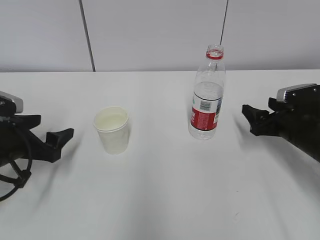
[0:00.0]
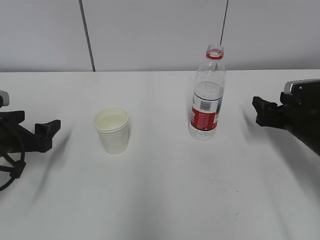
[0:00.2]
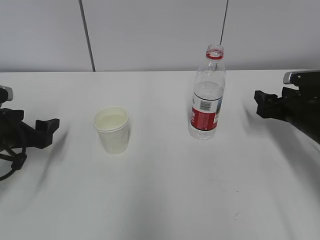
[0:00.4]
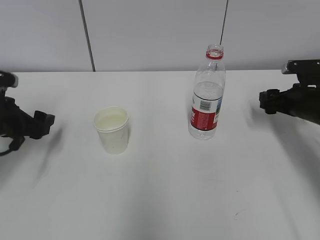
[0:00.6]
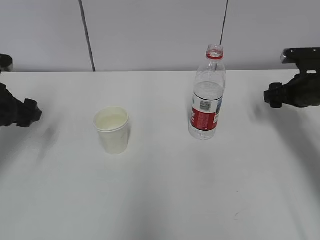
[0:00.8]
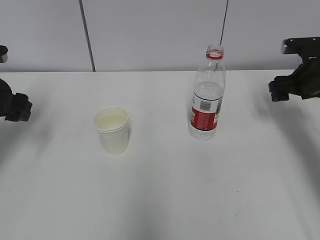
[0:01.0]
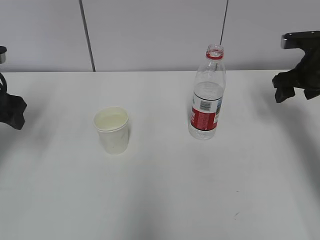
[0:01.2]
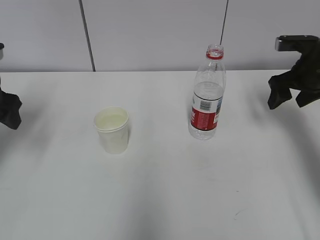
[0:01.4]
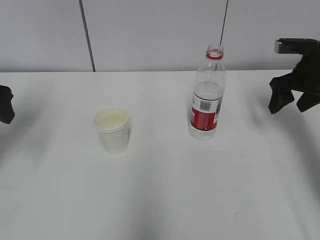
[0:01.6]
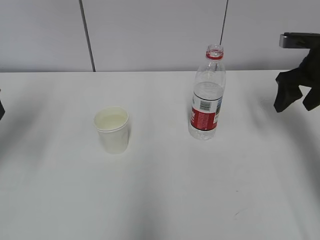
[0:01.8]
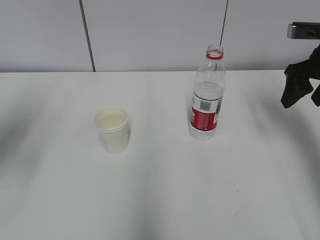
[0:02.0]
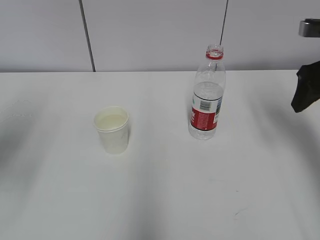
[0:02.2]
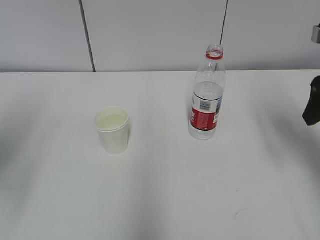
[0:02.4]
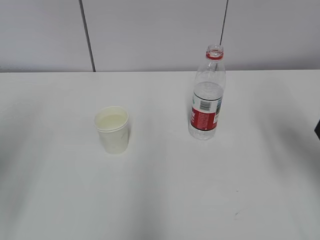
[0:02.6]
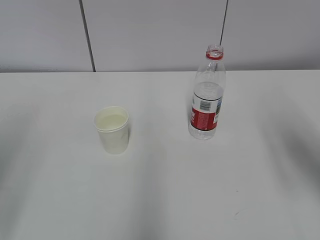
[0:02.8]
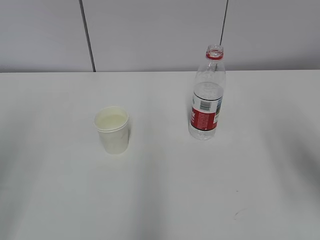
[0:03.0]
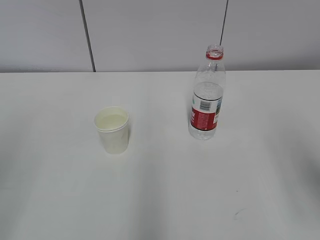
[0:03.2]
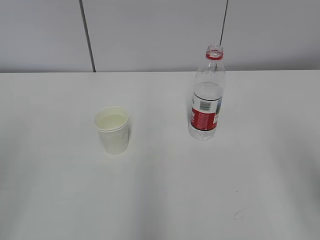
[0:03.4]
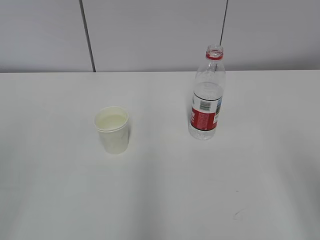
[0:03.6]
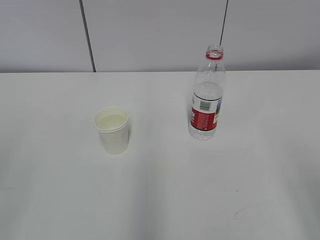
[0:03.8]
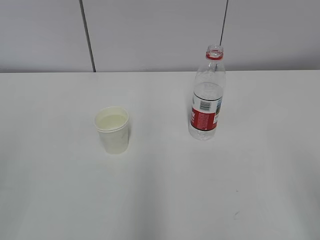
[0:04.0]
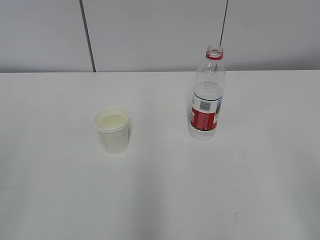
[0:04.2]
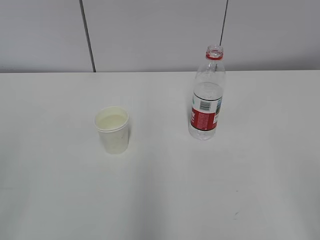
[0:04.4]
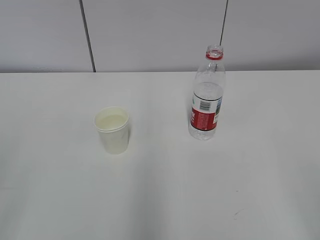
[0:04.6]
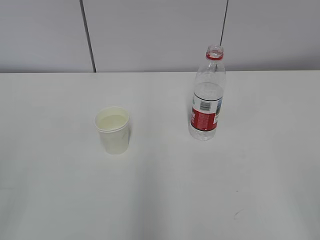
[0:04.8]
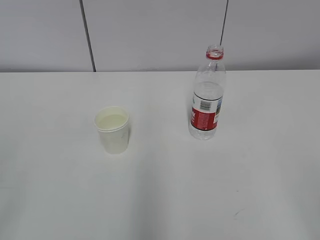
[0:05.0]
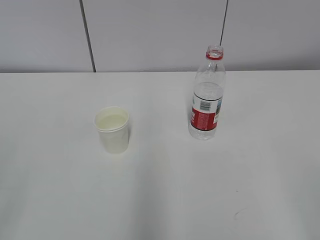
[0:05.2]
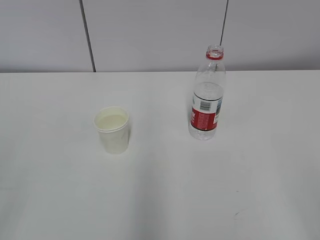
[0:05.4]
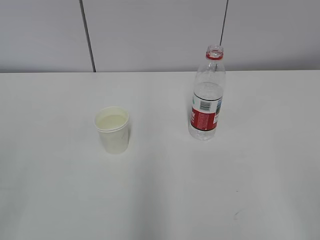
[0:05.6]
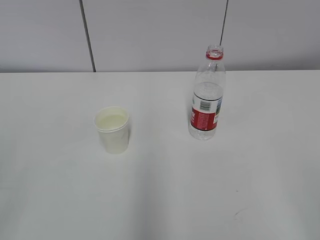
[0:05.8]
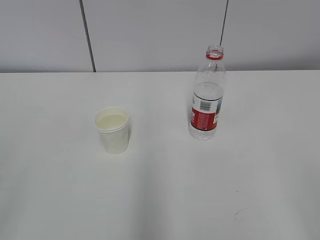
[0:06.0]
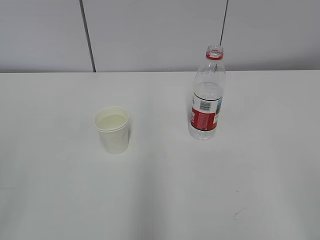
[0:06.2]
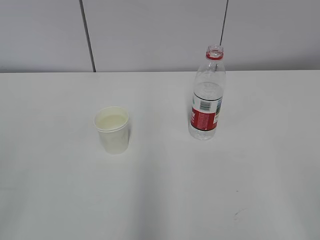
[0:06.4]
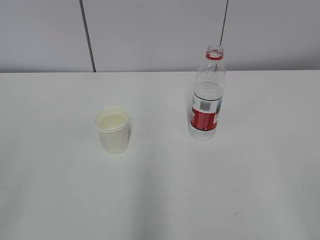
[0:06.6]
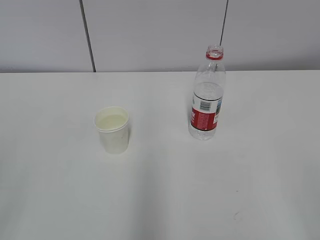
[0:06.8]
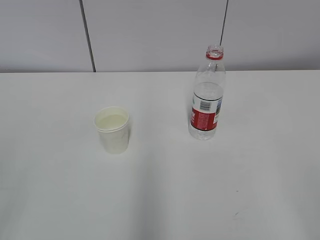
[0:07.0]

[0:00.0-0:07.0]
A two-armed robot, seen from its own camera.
0:00.0 to 0:01.4: Both grippers travel together upward and forward, some 15 cm.
0:01.4 to 0:02.8: The left gripper goes about 20 cm backward. The right gripper goes about 20 cm backward and upward.
0:02.8 to 0:04.2: The right gripper goes roughly 20 cm backward.
0:05.6 to 0:07.0: Both grippers stay put.

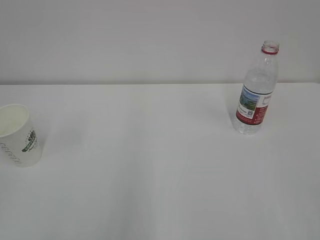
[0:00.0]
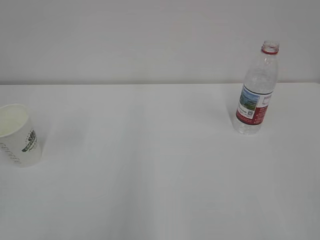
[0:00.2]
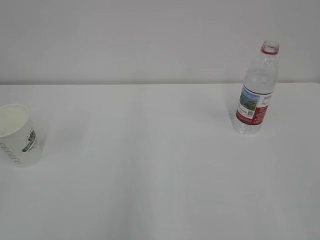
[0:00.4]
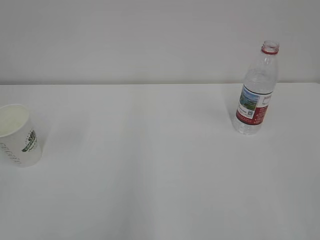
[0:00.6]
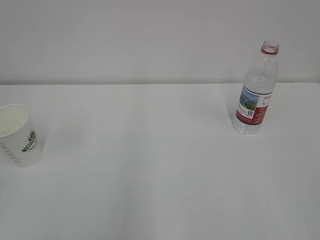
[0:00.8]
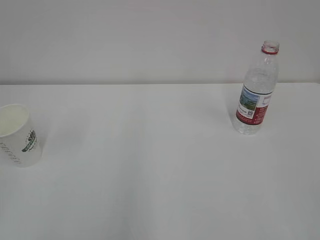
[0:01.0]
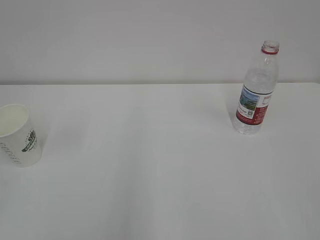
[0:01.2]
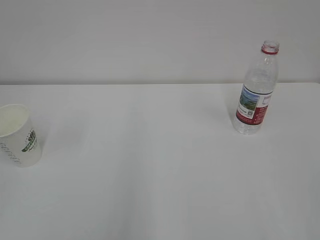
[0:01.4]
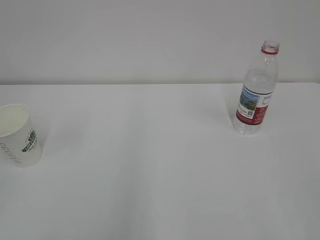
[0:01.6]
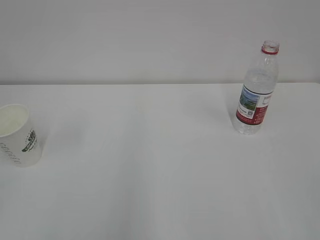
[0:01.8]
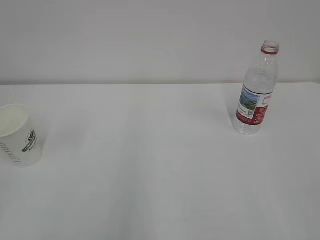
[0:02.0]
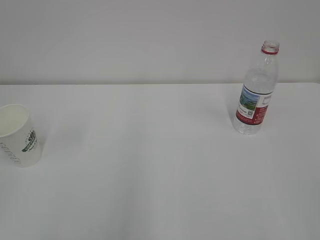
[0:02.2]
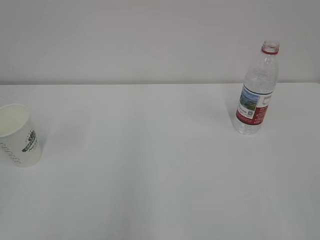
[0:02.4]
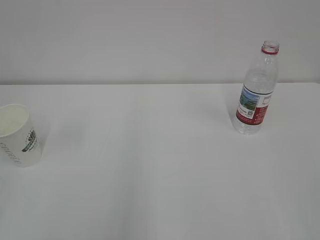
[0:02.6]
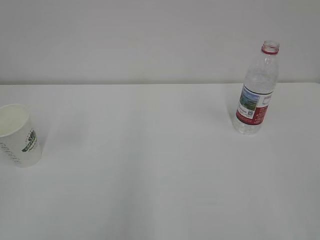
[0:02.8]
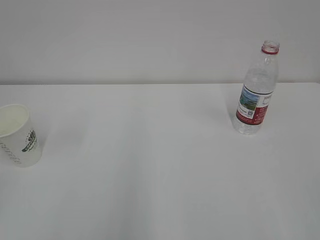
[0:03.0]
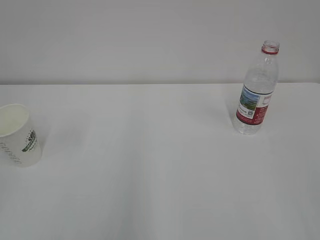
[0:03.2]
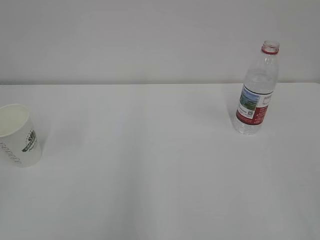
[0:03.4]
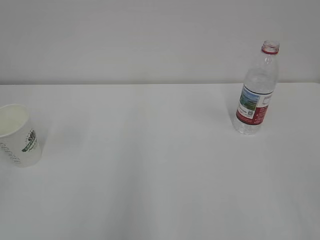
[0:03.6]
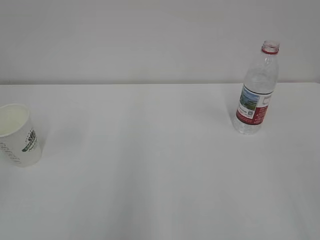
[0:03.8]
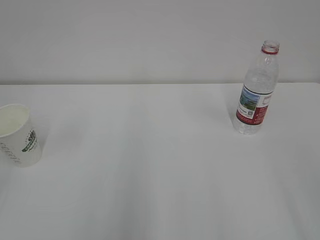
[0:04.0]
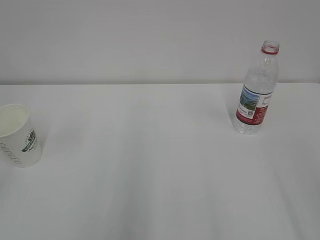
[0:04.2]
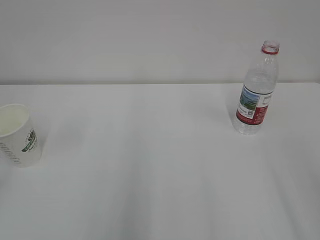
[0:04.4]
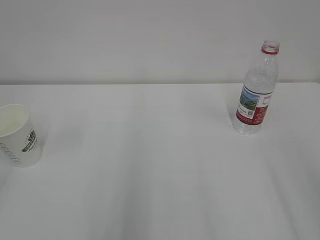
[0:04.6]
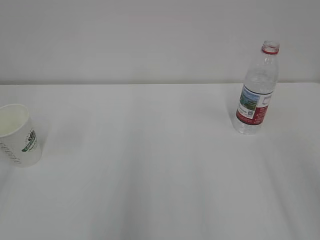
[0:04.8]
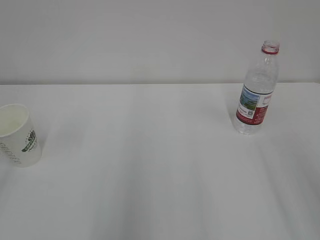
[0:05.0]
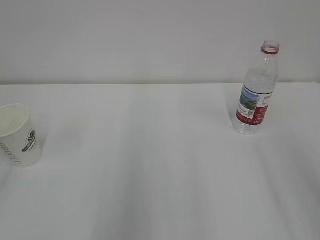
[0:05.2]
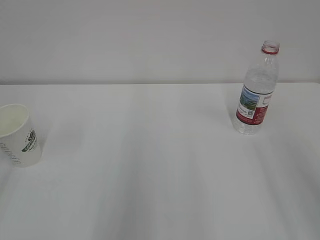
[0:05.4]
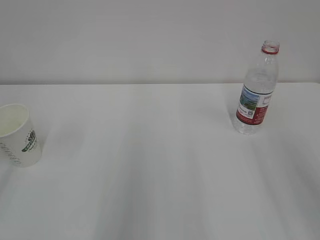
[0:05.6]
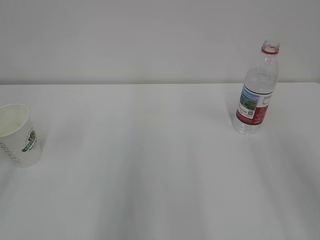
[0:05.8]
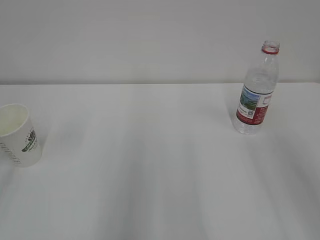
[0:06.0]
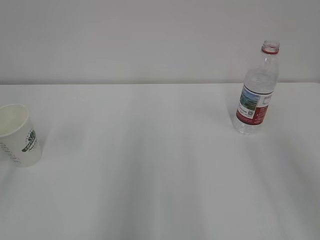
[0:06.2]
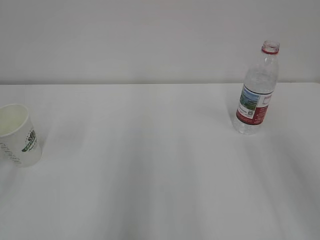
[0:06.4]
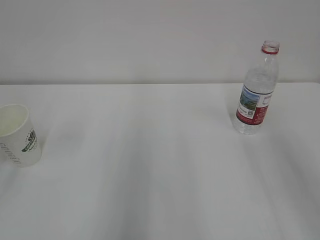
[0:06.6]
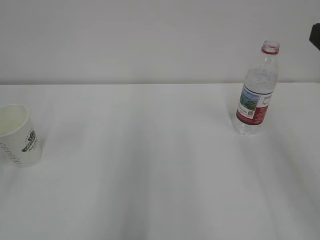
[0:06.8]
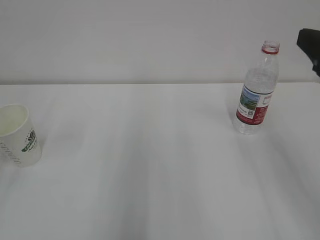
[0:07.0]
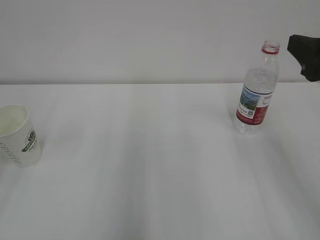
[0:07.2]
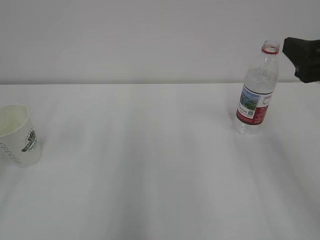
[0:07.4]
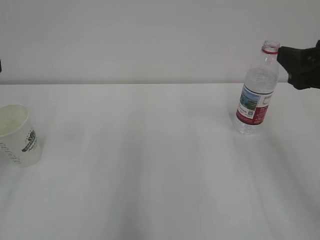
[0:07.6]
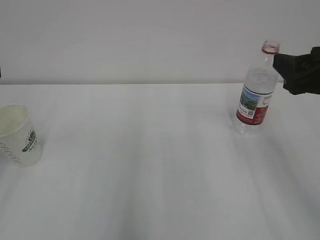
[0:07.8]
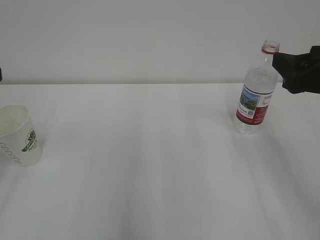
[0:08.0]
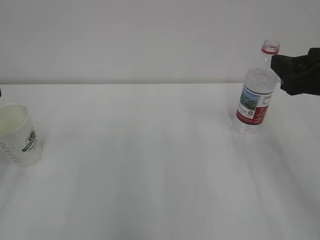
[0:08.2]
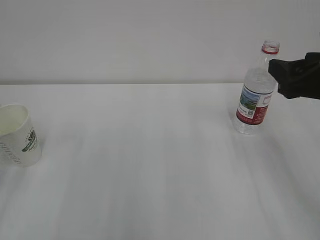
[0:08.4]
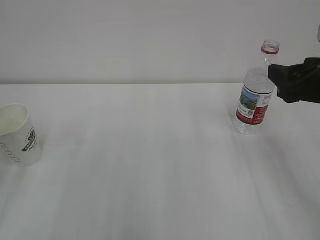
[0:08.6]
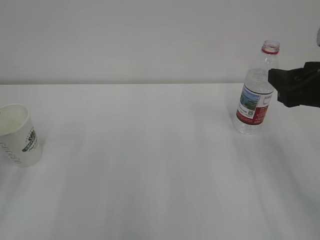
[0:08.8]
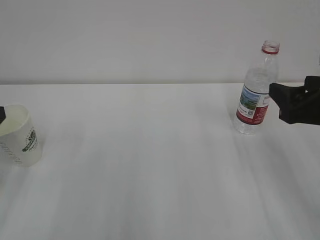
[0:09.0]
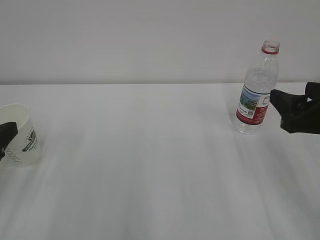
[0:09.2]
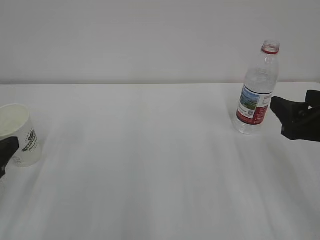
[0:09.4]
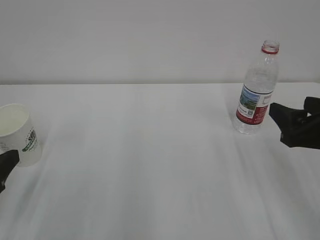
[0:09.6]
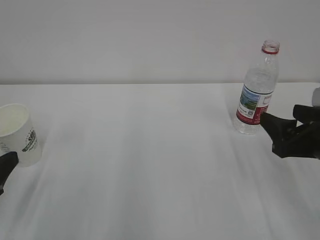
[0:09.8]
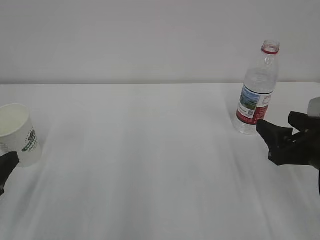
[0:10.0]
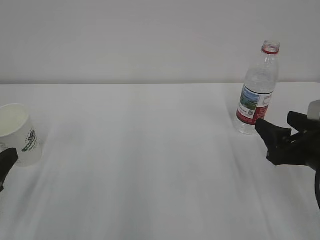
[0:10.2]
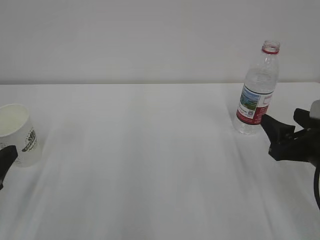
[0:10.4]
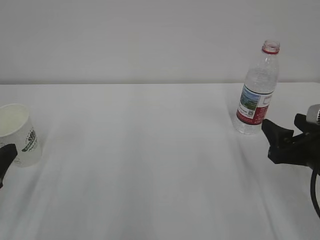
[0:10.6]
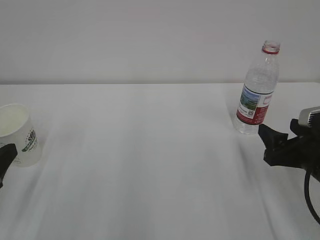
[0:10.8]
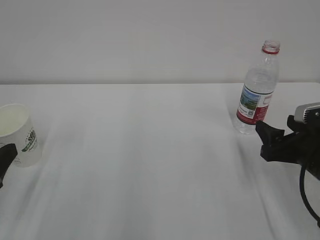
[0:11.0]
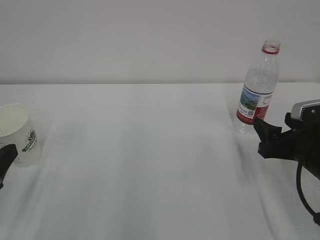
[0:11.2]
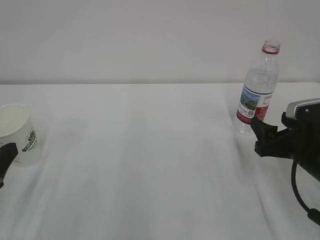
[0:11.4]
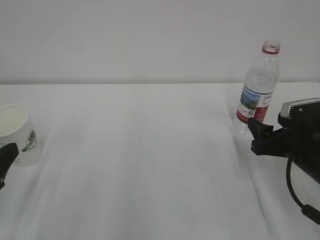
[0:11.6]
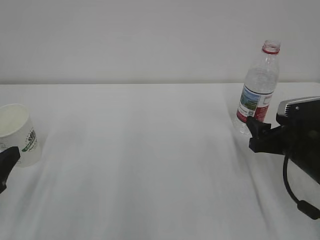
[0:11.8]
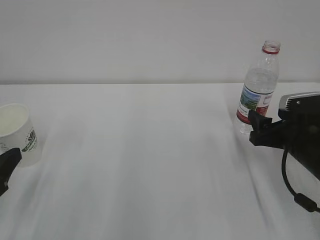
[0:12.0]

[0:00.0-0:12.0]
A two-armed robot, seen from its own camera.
0:01.6 to 0:03.0: The two grippers keep their place.
0:06.0 to 0:07.6: The right gripper goes about 10 cm forward.
0:09.0 to 0:10.4: Both grippers travel together downward, approximately 5 cm.
0:10.4 to 0:12.0: The right gripper moves forward, roughly 5 cm.

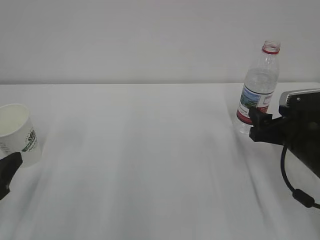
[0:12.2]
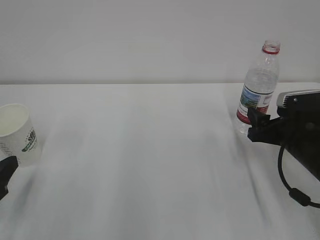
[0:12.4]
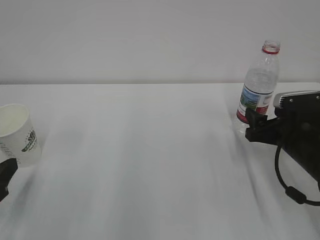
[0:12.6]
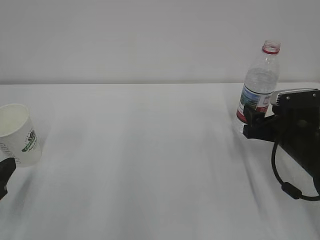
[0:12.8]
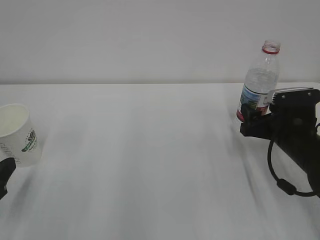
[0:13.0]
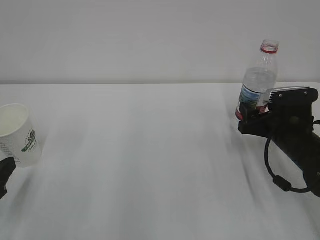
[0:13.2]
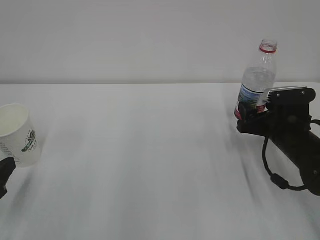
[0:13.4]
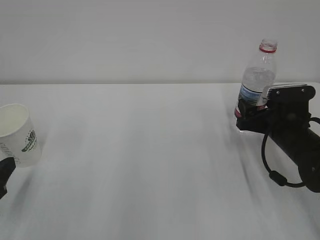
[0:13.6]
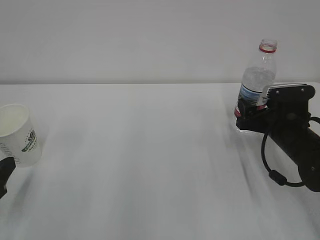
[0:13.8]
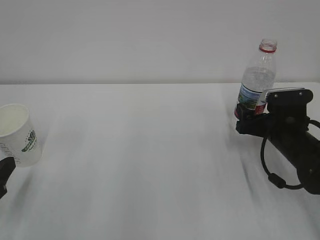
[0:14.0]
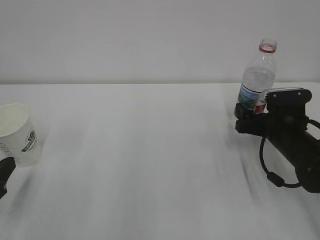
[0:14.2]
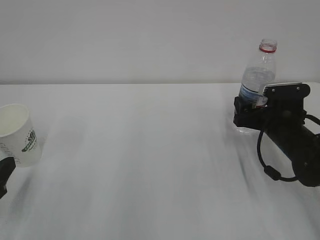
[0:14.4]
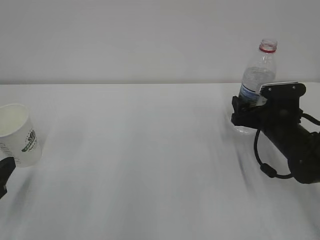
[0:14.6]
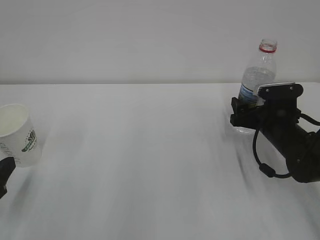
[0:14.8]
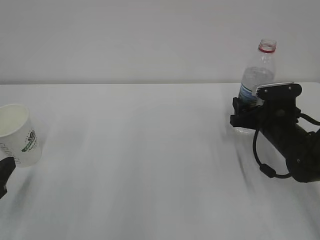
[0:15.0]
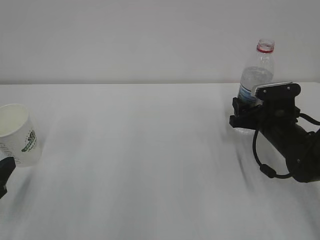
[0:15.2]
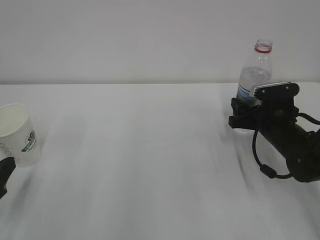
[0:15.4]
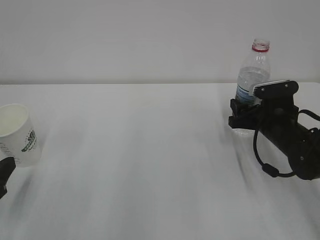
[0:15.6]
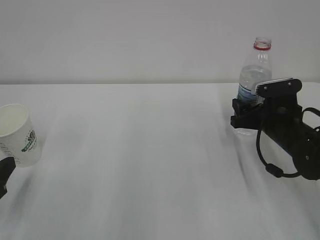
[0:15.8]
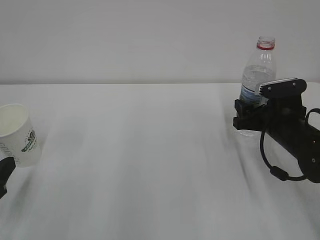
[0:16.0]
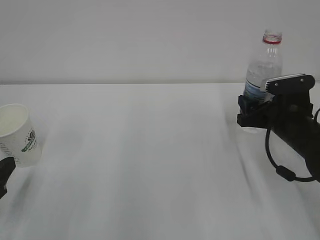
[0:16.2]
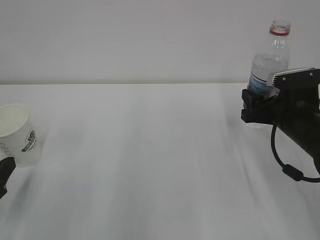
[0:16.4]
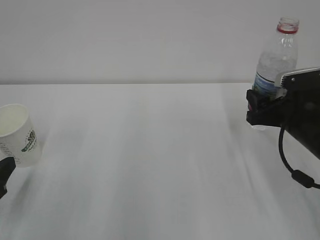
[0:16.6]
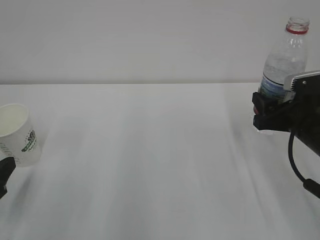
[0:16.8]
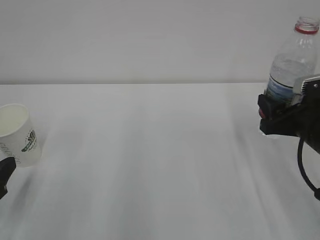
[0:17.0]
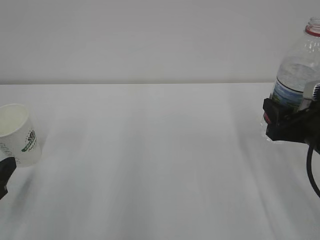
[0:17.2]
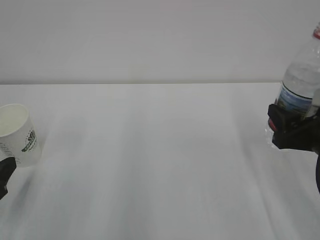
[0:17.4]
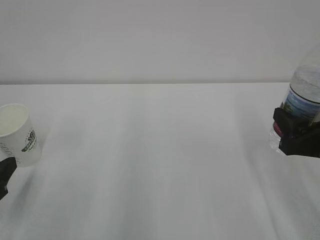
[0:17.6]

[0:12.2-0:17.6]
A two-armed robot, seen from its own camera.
0:12.2 to 0:13.6: The right gripper shifts by roughly 5 cm.
0:13.6 to 0:15.0: There are only small adjustments of the grippers.
0:15.0 to 0:16.2: The right gripper closes its fingers.
0:16.2 to 0:17.6: The right gripper heads backward, covering some 10 cm.